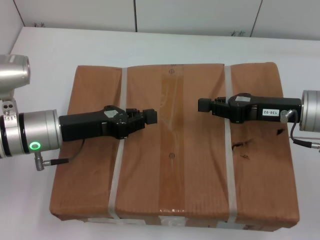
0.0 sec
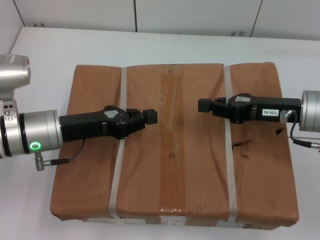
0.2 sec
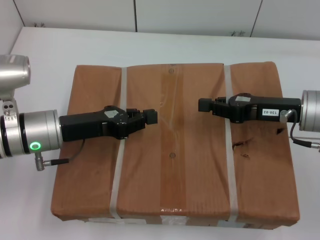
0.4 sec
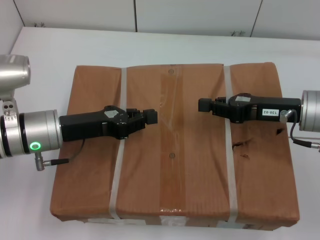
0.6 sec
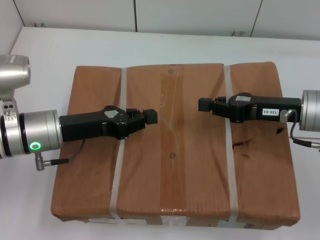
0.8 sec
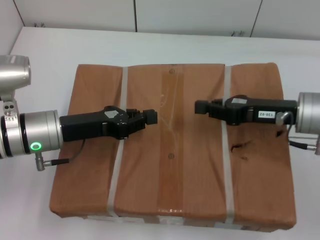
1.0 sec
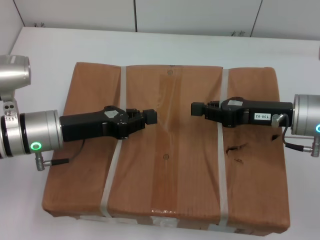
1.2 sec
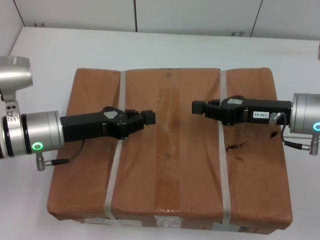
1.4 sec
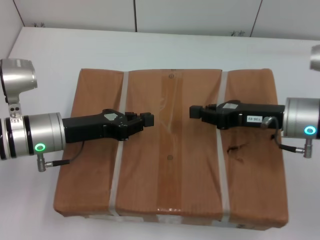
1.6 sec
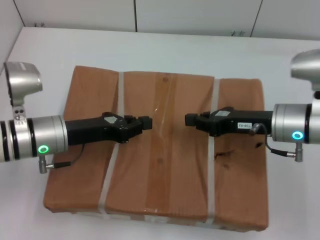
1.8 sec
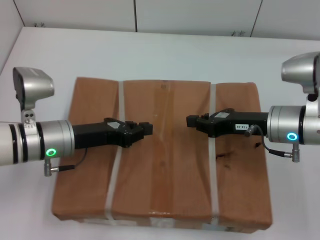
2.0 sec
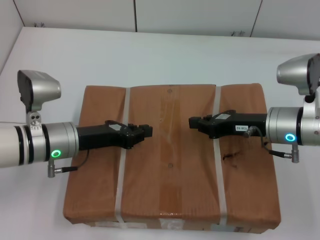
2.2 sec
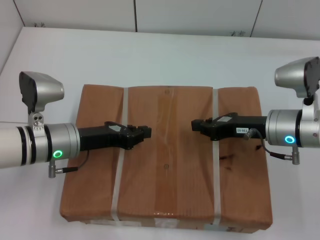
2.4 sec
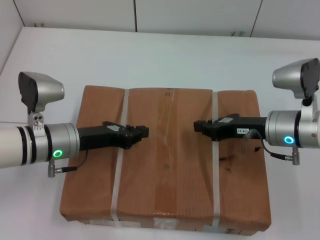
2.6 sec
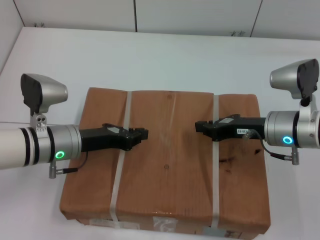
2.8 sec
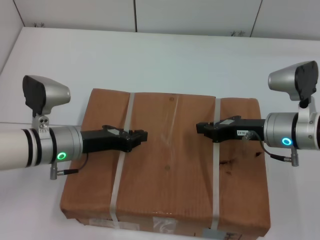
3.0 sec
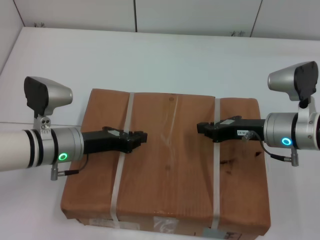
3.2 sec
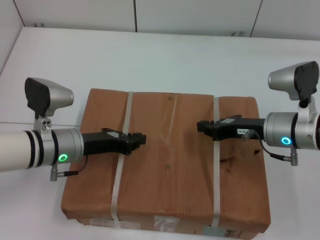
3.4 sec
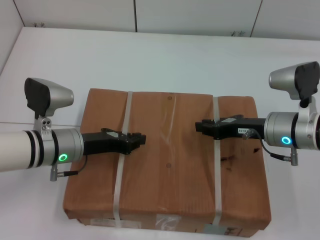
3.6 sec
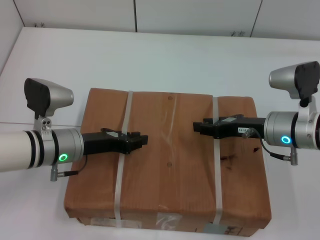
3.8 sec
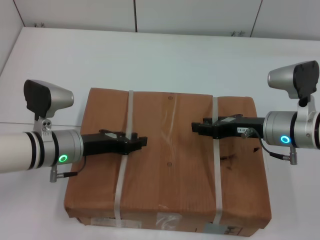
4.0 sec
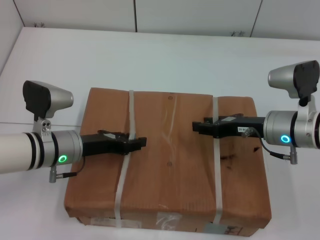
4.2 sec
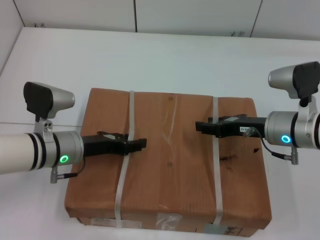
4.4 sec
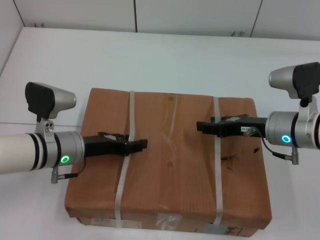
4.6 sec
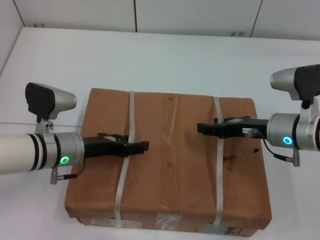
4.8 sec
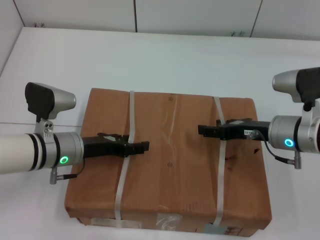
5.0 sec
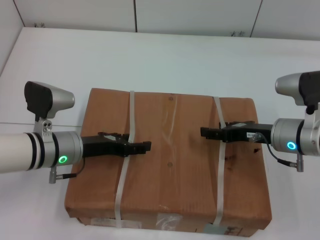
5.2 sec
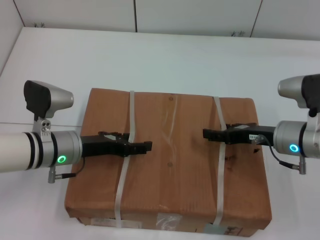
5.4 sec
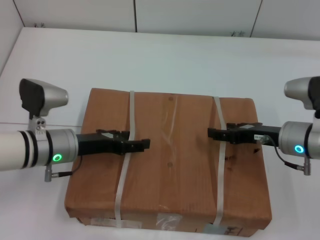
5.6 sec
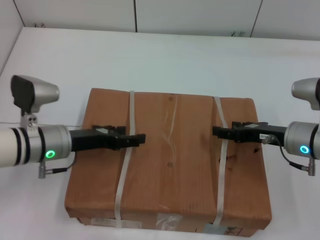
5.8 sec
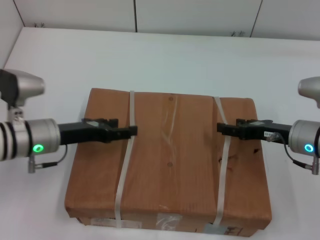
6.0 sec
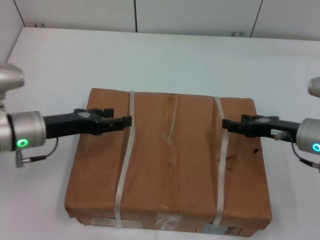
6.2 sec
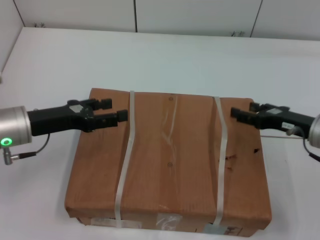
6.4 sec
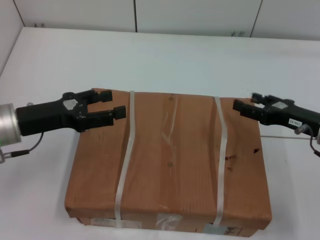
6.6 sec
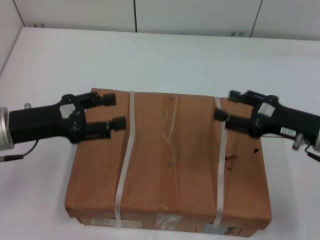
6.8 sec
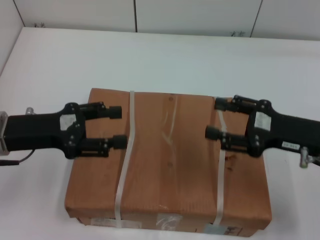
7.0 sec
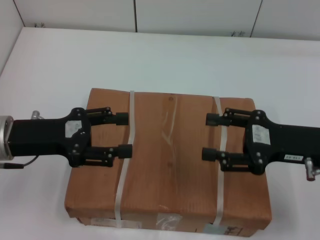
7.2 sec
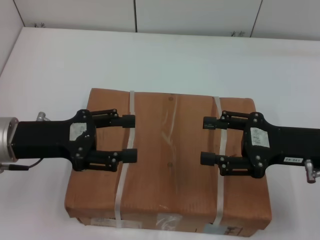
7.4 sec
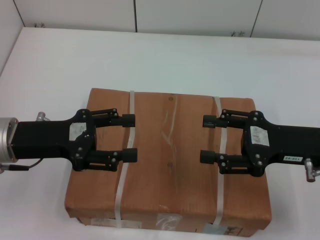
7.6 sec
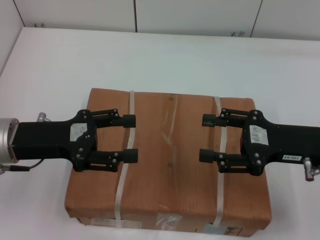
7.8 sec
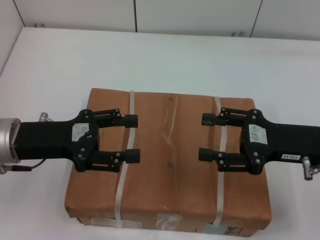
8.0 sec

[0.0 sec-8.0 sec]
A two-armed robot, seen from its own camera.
Task of the whole recording: place the box on the table with both arms.
Step, 0.0 sec to 3.0 sec: Place the box on the table with left gripper.
Step, 0.0 sec to 3.0 sec: Place the box on the table with right gripper.
Step, 3.2 sec to 5.0 sec: Loosen the box on the table with left gripper.
Step, 3.2 sec to 5.0 sec: Loosen the box on the table with right gripper.
0.0 sec to 1.6 sec: There are only small adjustments of the grippers.
3.2 sec to 4.8 sec: The left gripper opens; the right gripper opens up.
4.8 sec to 6.4 sec: The left gripper heads to the left and upward, covering roughly 10 cm, and opens its fingers. Meanwhile the right gripper travels to the right by some 5 cm.
6.4 sec to 8.0 sec: The left gripper shifts by roughly 5 cm. The right gripper moves upward, roughly 5 cm.
